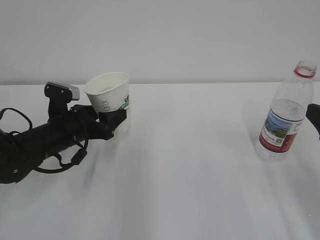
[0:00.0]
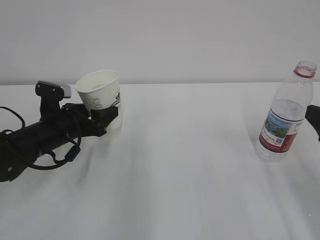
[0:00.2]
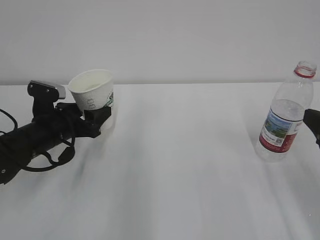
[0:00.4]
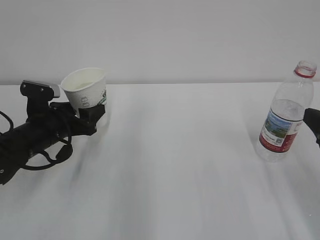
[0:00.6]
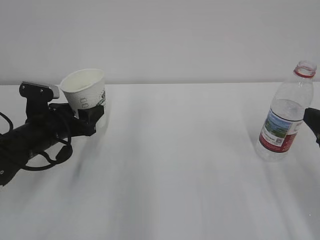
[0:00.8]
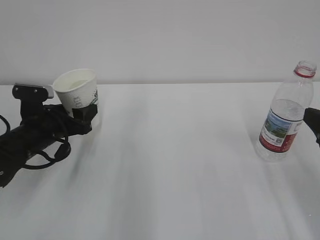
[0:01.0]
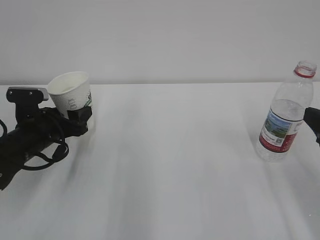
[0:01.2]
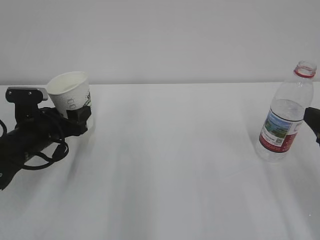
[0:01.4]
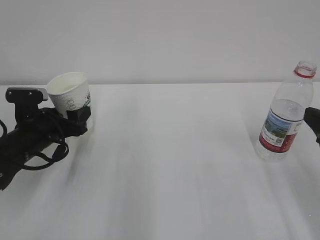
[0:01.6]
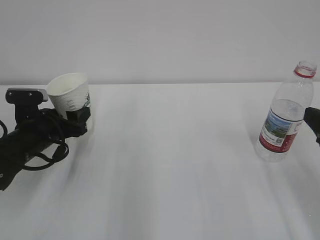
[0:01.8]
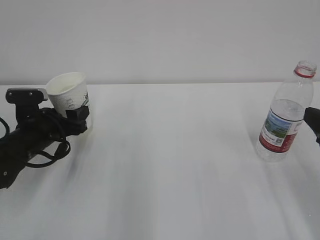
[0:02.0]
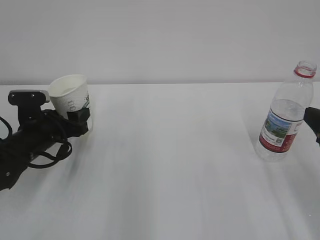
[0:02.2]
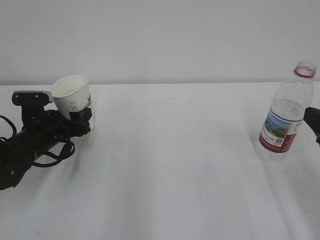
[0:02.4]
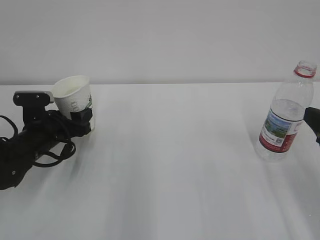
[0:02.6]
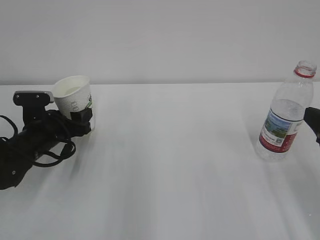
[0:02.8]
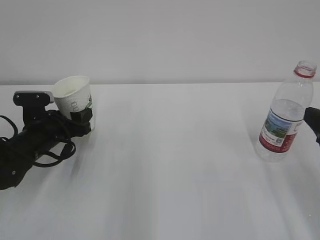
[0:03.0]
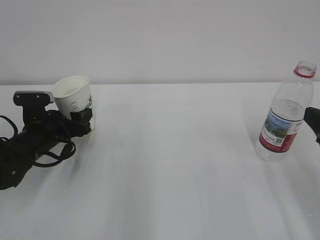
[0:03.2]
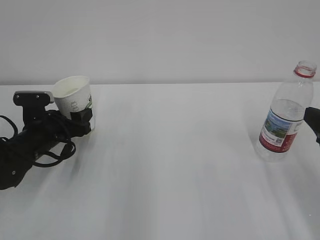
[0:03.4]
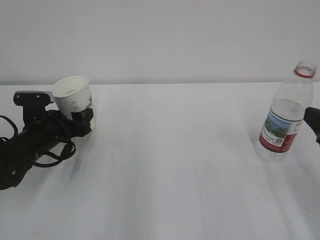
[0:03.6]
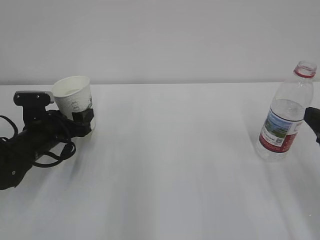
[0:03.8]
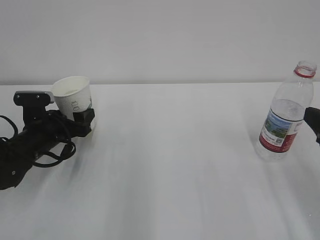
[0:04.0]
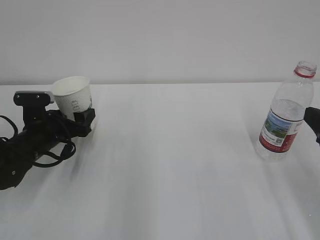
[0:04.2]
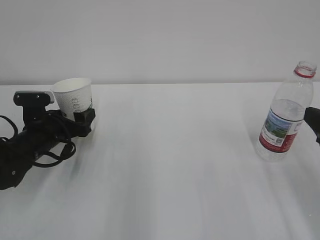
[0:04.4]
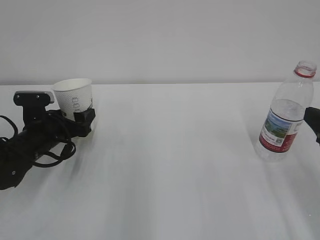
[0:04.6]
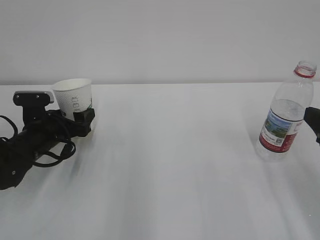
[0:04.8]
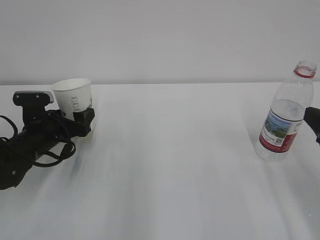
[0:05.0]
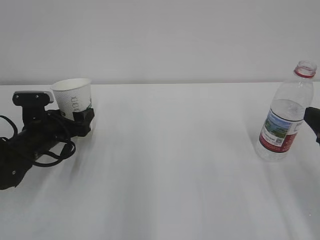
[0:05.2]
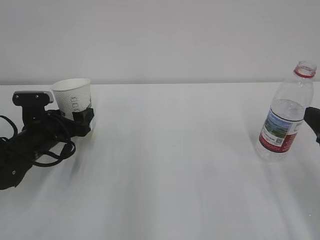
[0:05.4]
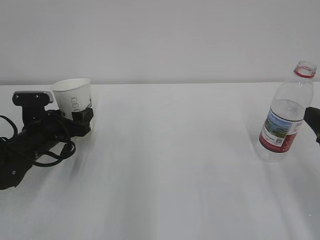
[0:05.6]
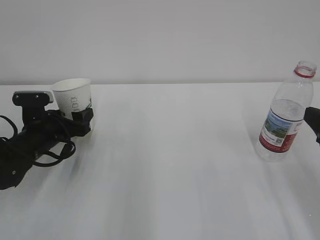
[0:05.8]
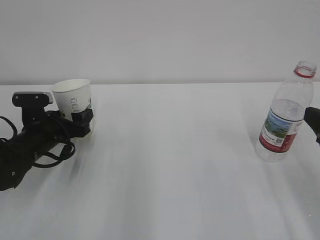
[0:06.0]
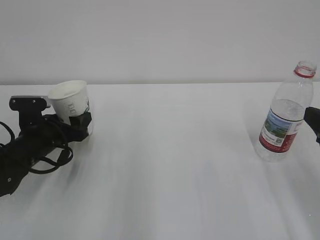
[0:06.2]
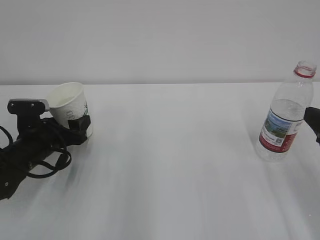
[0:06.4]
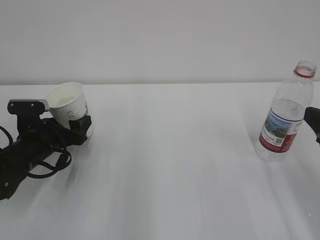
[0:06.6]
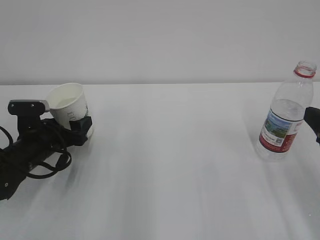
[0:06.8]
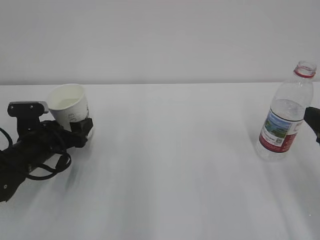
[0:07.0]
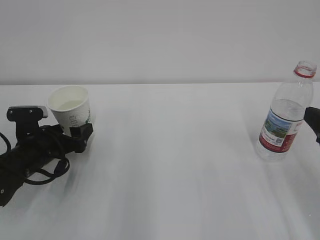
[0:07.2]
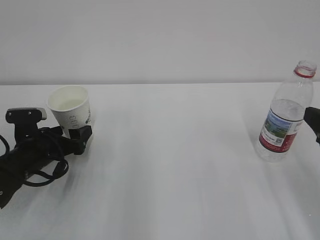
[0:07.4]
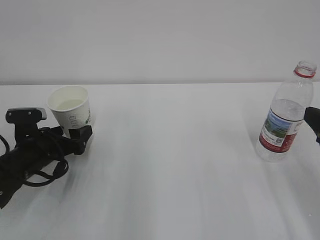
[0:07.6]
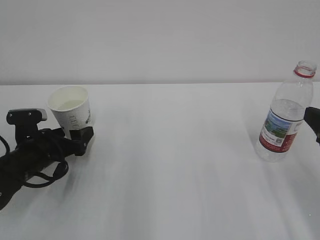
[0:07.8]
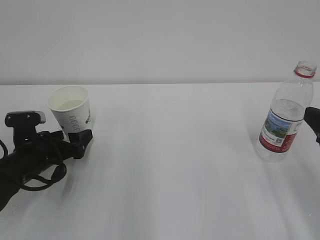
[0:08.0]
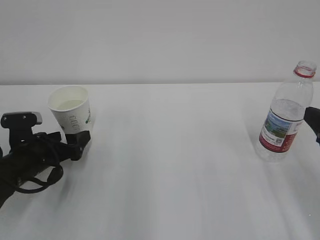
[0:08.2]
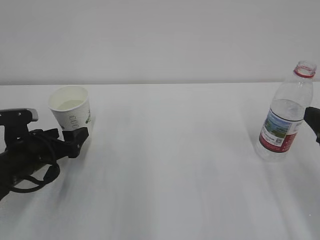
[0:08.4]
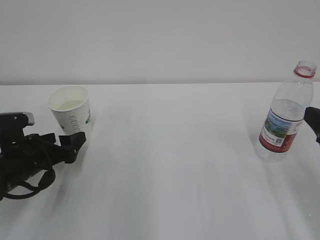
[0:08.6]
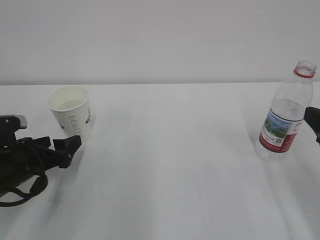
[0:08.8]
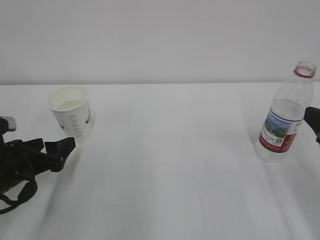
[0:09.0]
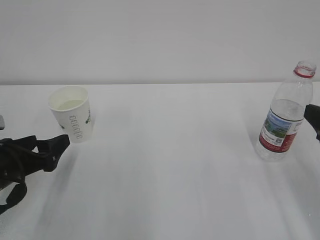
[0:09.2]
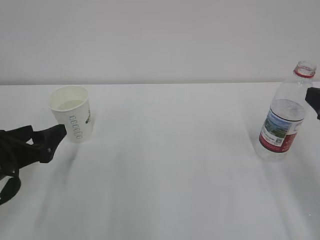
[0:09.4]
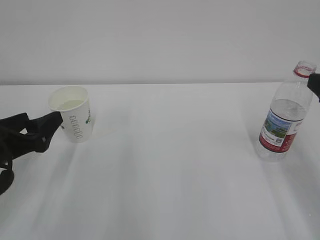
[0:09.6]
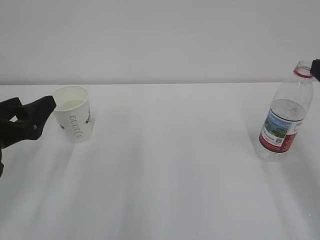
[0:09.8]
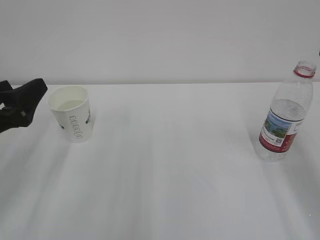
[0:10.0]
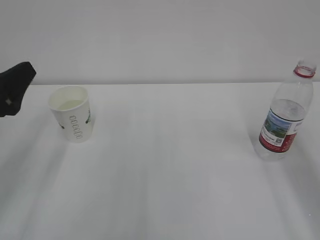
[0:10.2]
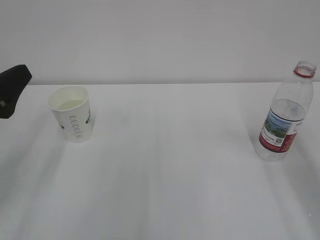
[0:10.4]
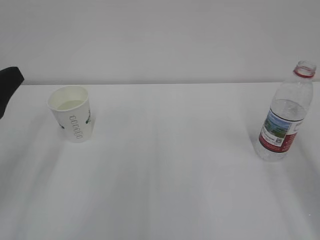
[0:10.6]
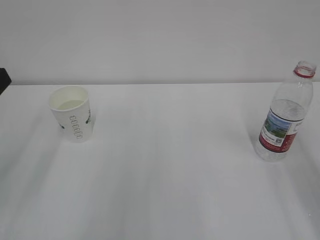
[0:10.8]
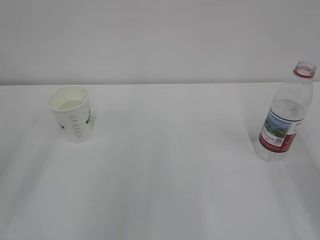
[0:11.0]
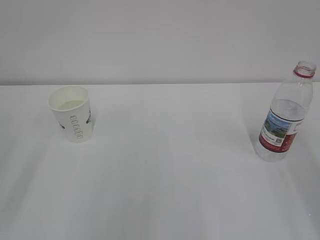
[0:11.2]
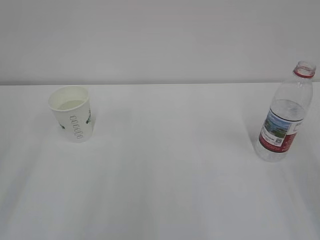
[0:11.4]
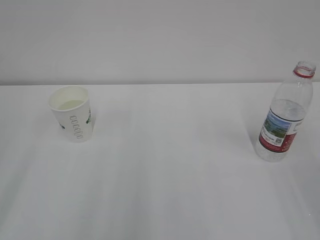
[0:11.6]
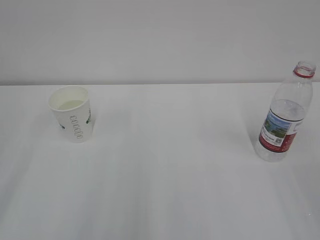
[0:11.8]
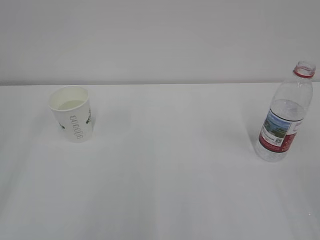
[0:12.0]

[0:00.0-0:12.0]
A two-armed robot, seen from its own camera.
0:00.0 to 0:01.6: The grippers move only a little.
0:01.6 to 0:03.0: The grippers make only small movements.
0:04.4 to 0:06.0: The two grippers keep their place.
0:06.0 to 0:07.6: The left gripper opens up.
0:07.6 to 0:09.0: The left gripper goes some 5 cm backward.
0:09.0 to 0:10.4: The left gripper shifts about 15 cm upward.
0:10.4 to 0:12.0: The left gripper moves backward and upward, some 15 cm.
